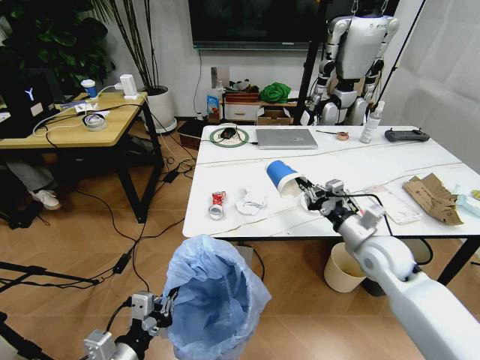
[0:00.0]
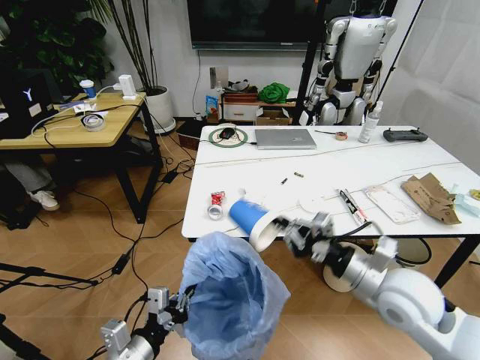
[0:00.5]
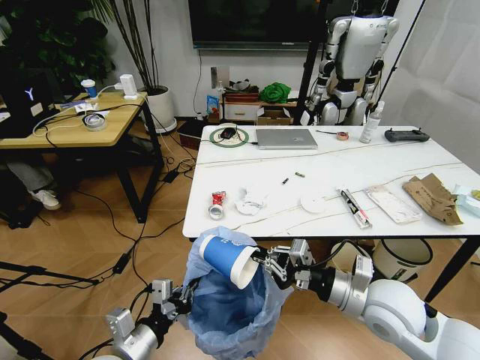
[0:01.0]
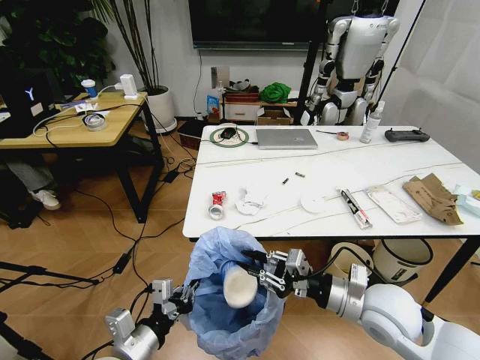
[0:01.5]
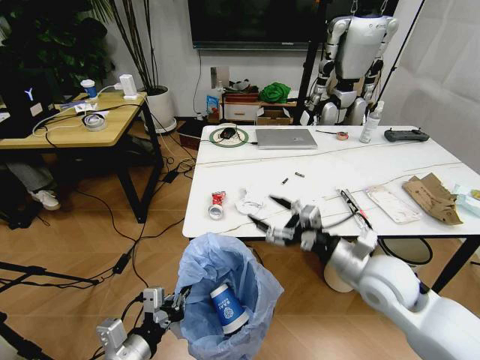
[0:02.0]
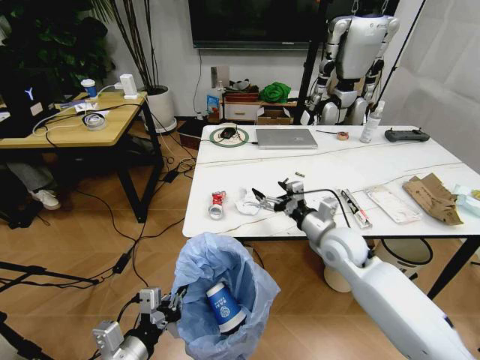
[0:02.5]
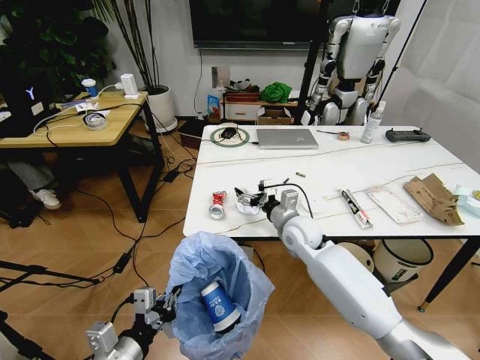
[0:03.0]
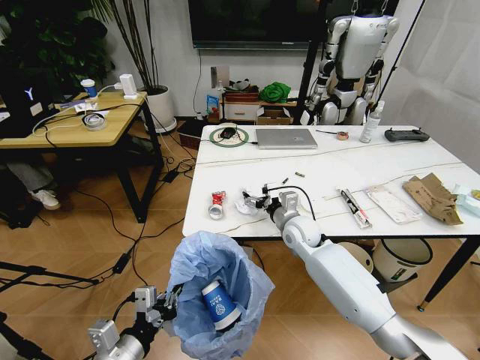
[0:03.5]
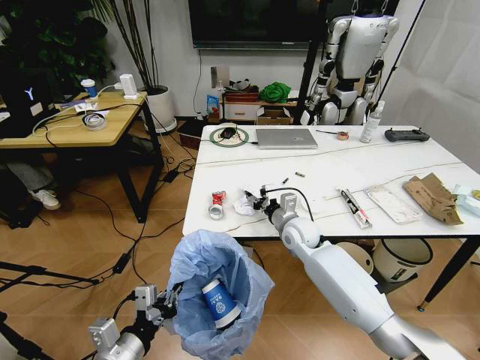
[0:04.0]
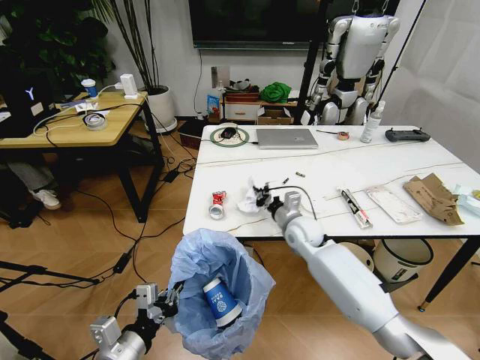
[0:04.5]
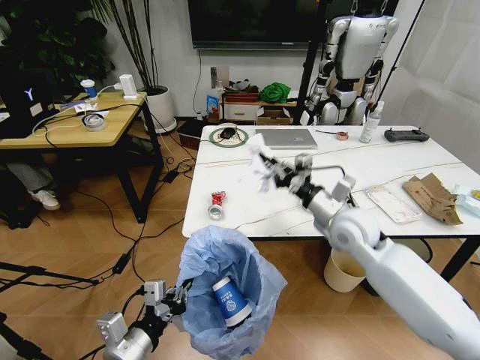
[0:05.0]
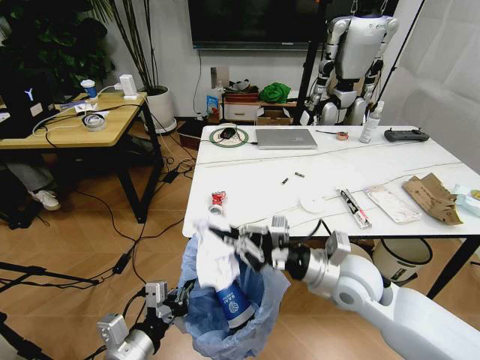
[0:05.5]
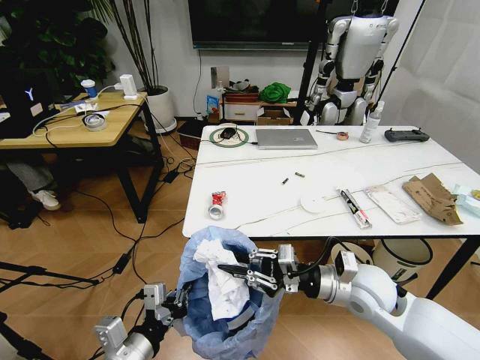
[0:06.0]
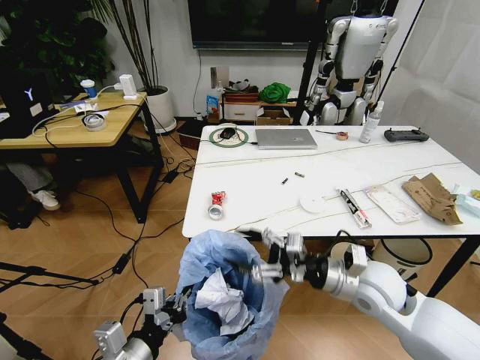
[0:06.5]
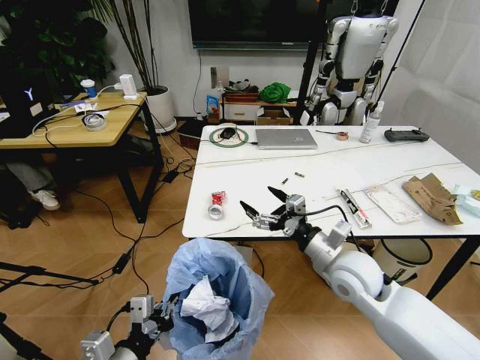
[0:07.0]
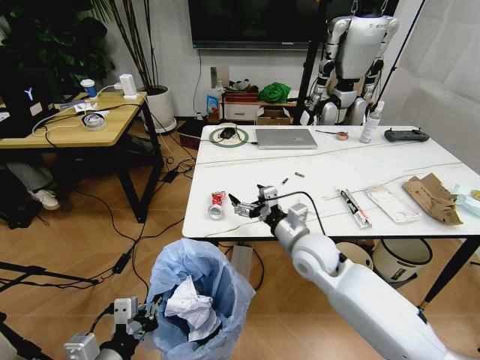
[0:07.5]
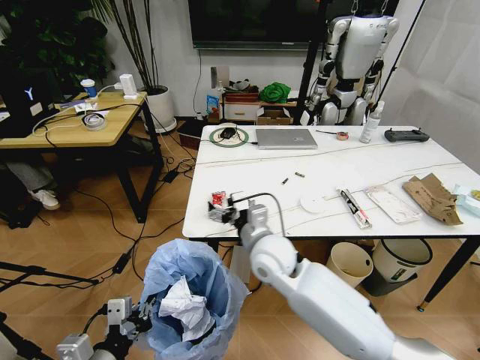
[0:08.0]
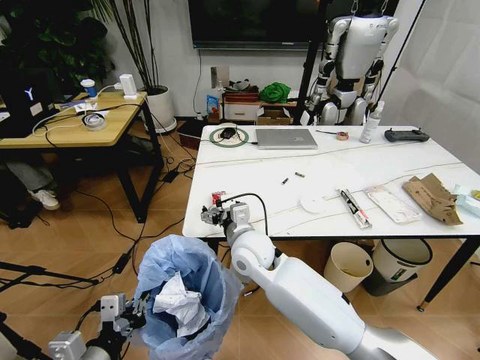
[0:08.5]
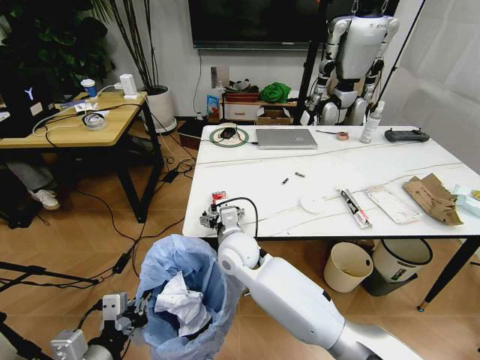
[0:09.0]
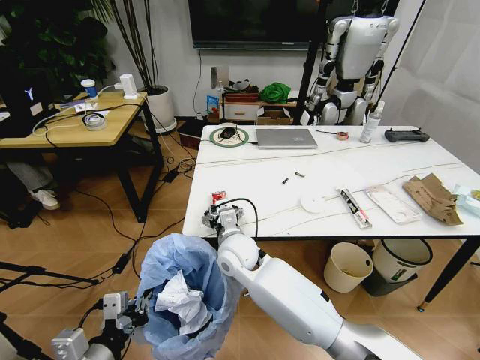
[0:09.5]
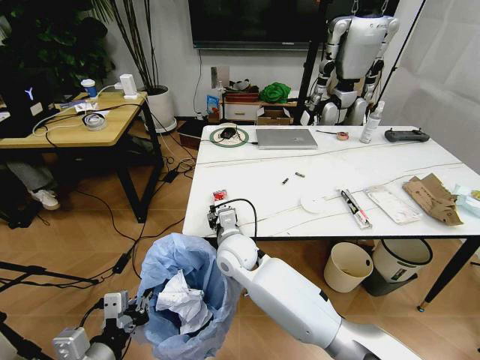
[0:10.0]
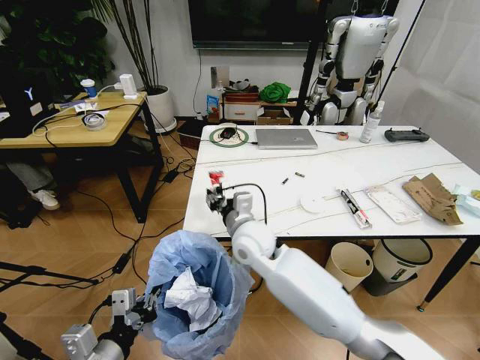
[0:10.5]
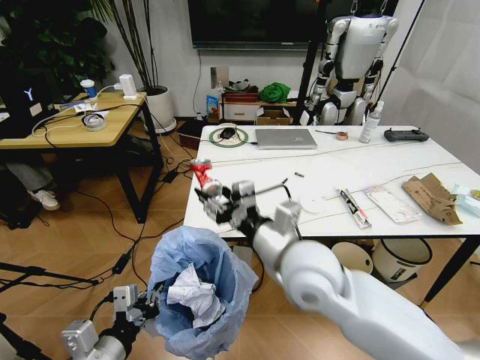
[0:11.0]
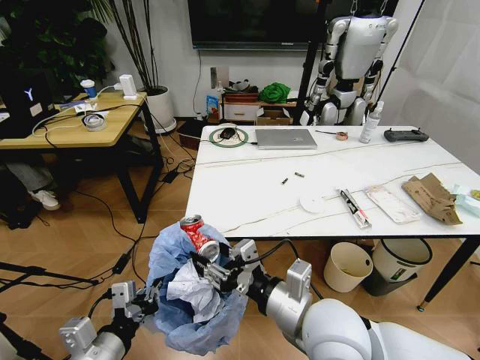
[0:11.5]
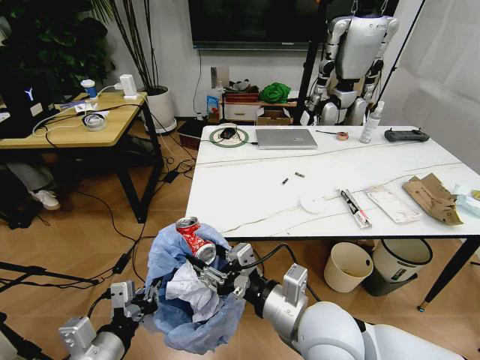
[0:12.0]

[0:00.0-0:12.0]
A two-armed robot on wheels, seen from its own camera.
Task of the whole recording: Pick up the trash bin and place the trash from the table into it.
0:00.0 to 0:02.0: The right gripper goes about 10 cm backward, and opens.
0:02.0 to 0:04.0: The right gripper moves forward, to the left and downward, approximately 25 cm, and closes.
0:04.0 to 0:06.0: The right gripper travels backward and to the right by roughly 20 cm.
0:06.0 to 0:08.0: The left gripper changes place by some 5 cm, while the right gripper travels to the left by some 15 cm, and opens.
0:08.0 to 0:10.0: The right gripper heads to the left, covering about 10 cm, and closes.
0:10.0 to 0:12.0: The right gripper travels backward, to the right and upward by about 25 cm.

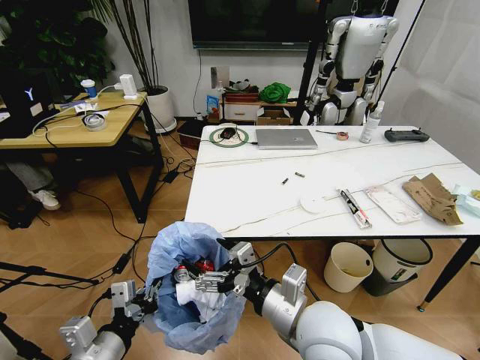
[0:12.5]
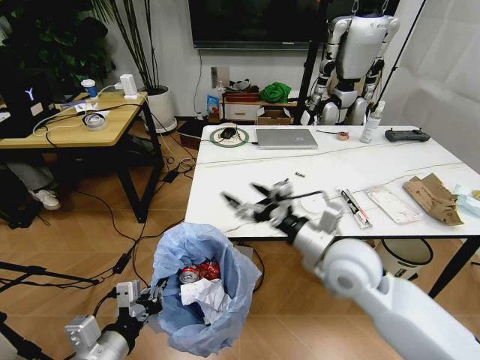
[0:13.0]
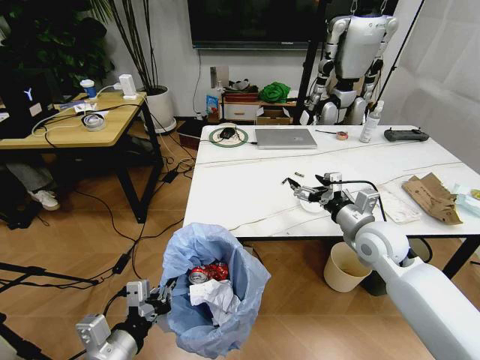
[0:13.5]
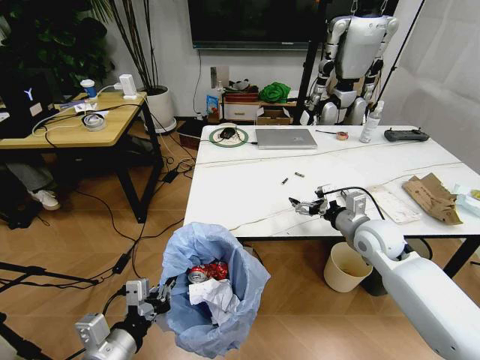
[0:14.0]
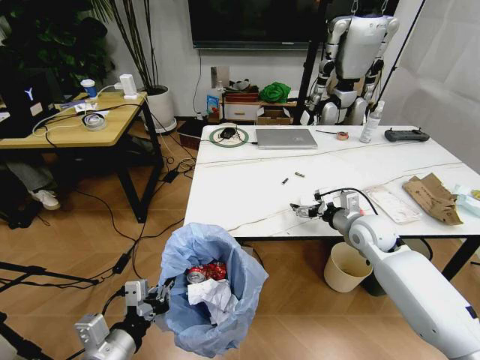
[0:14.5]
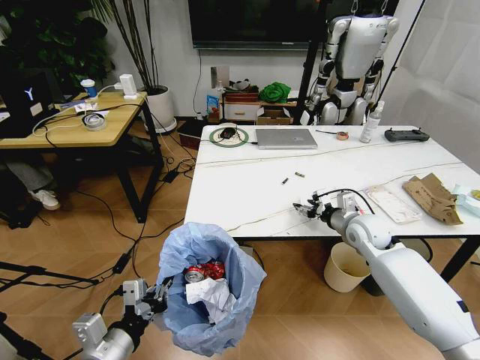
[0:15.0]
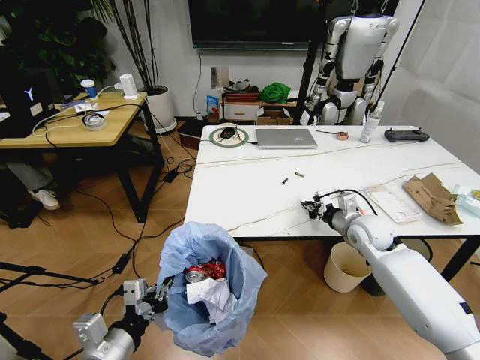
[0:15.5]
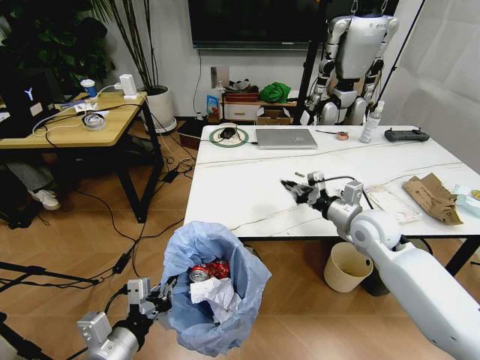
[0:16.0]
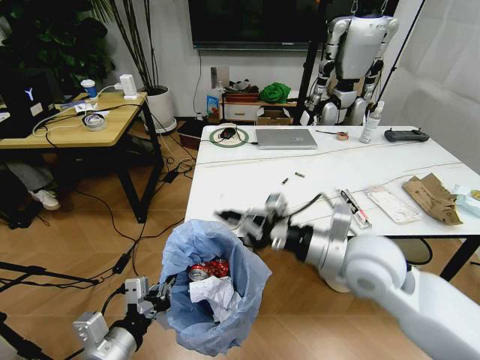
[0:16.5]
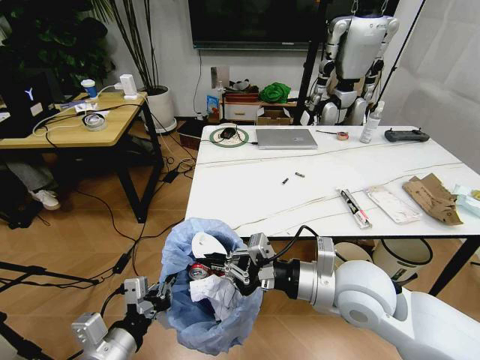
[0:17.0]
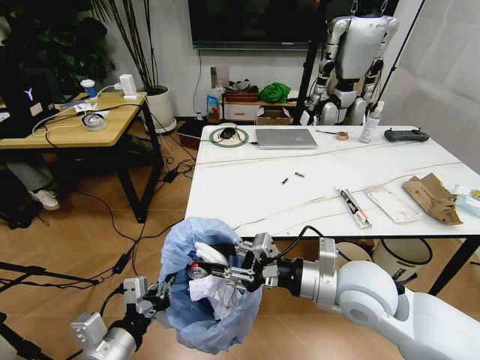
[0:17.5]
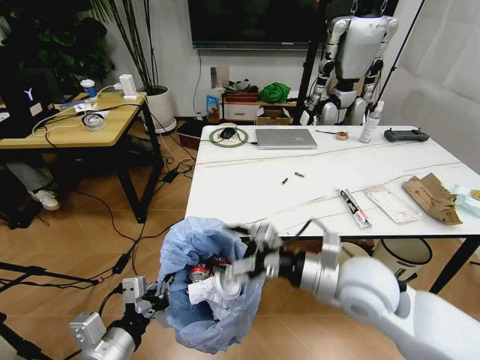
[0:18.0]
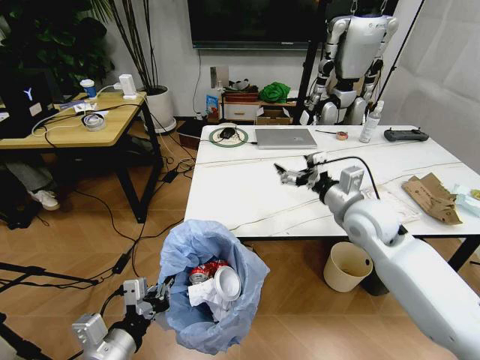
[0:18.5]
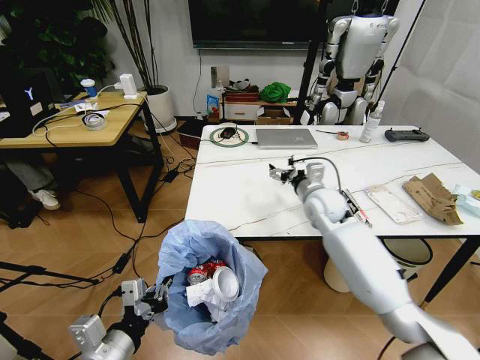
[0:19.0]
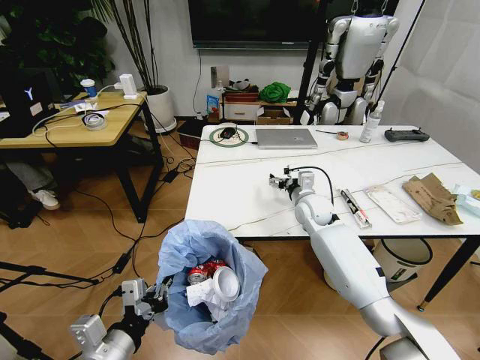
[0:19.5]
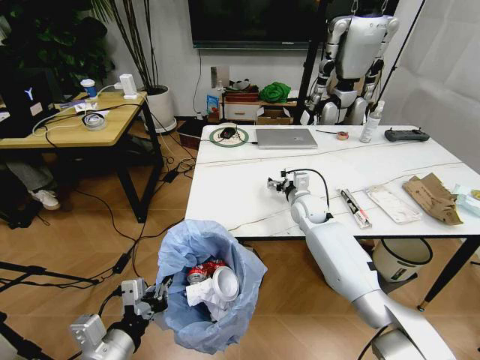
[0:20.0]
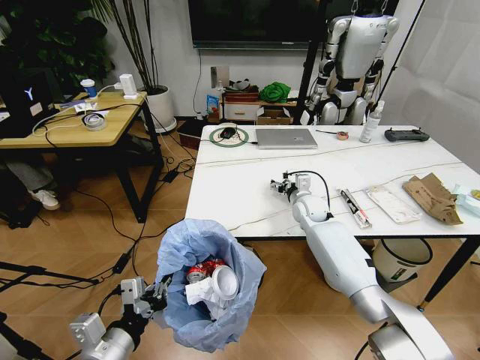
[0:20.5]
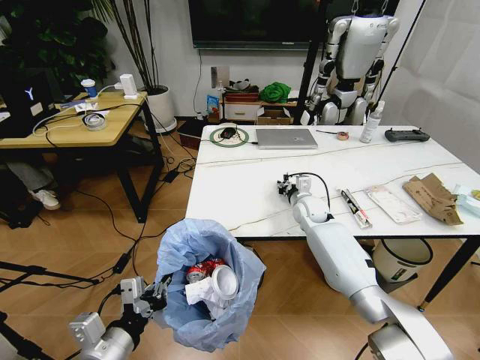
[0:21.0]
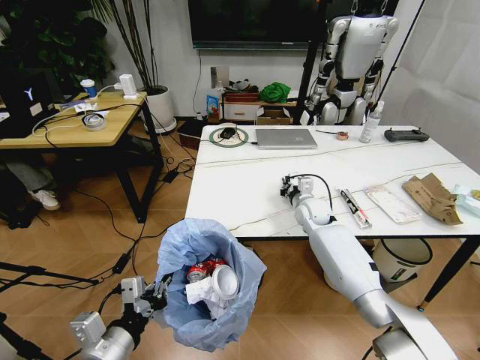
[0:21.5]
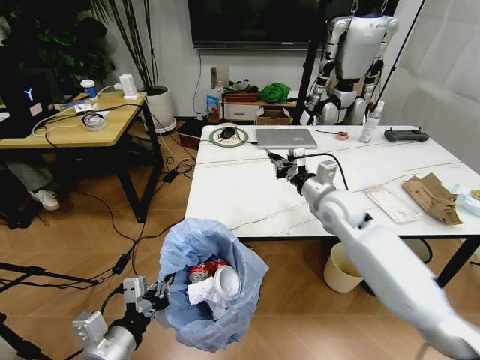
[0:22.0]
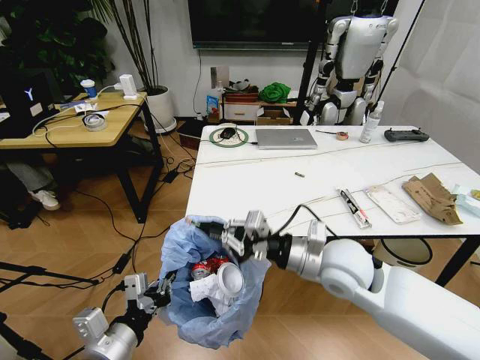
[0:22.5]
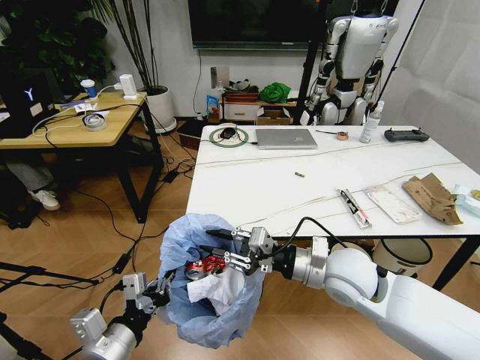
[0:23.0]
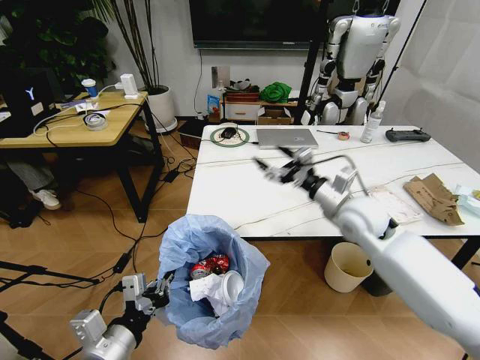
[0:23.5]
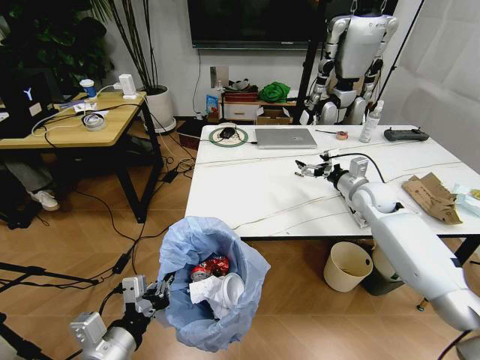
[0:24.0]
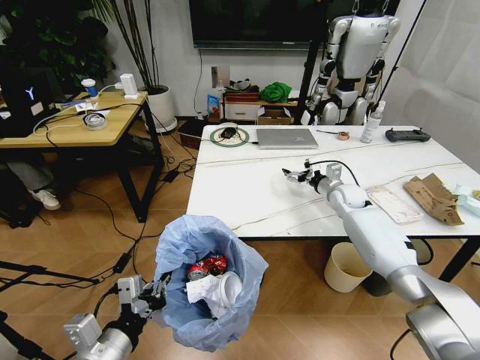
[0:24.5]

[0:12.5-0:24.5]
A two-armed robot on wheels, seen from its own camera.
Task of the whole recording: Pick up the trash bin and place the trash from the table into it.
0:12.5 to 0:14.5: The right gripper heads forward and to the right, covering roughly 30 cm.
0:14.5 to 0:16.5: The right gripper goes some 20 cm backward, upward and to the left, and closes up.
0:16.5 to 0:18.5: The right gripper moves forward, about 10 cm, and opens.
0:18.5 to 0:20.5: The right gripper is displaced forward and downward by roughly 20 cm.
0:20.5 to 0:22.5: The right gripper moves backward and upward, roughly 25 cm, and closes up.
0:22.5 to 0:24.5: The right gripper travels forward and to the right by approximately 30 cm, and opens its fingers.

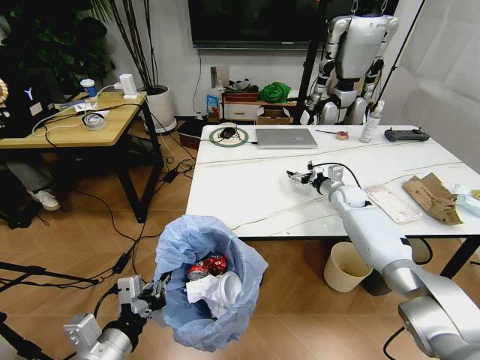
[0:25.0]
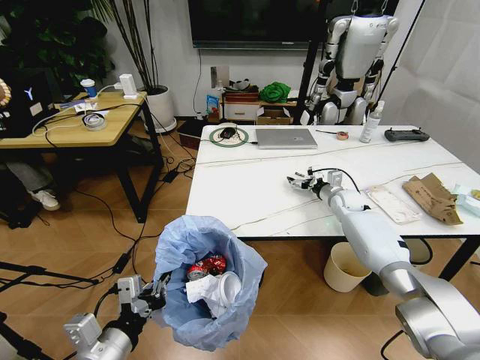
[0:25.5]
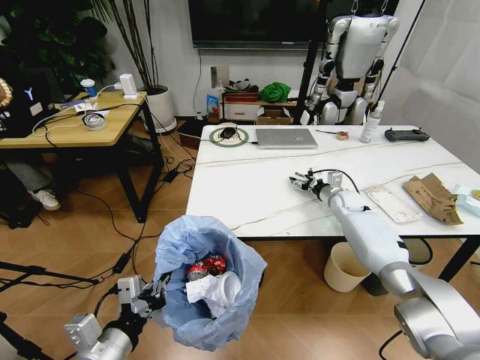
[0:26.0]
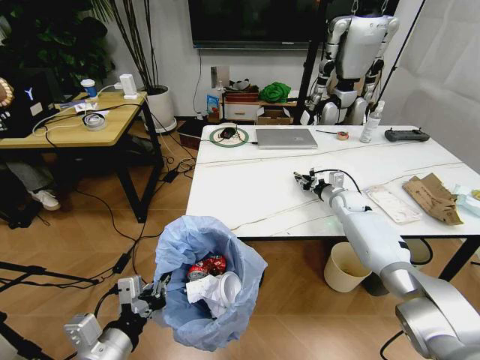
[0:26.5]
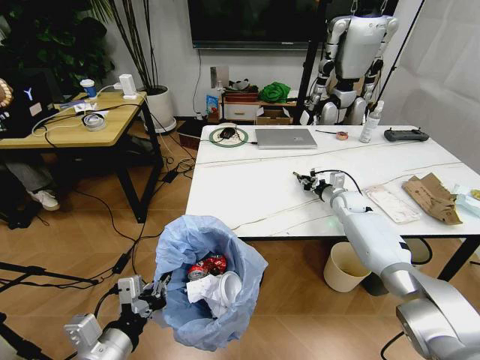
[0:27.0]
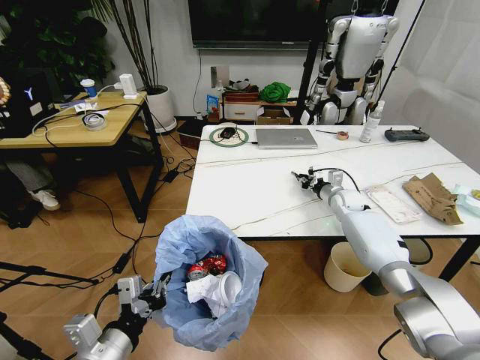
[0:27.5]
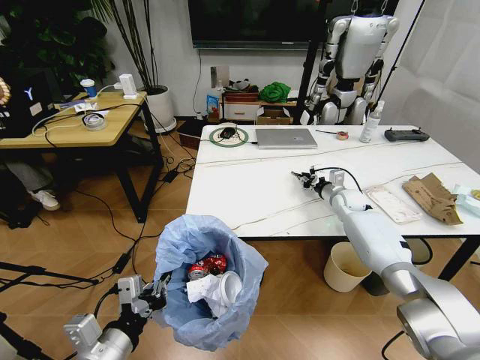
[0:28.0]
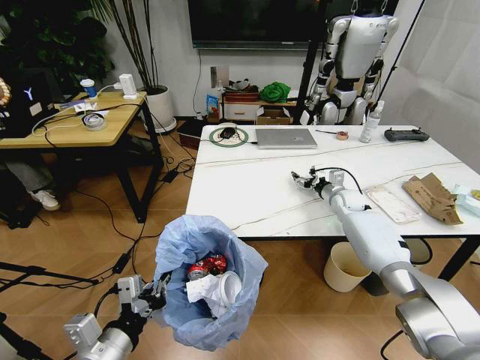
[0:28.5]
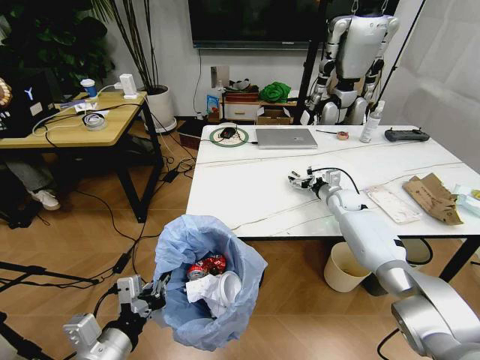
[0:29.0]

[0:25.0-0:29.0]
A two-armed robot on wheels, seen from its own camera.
Task of the whole recording: Pick up the trash bin and place the trash from the table into it.
0:25.0 to 0:27.0: The right gripper closes its fingers.
0:27.0 to 0:29.0: The right gripper opens its fingers.
